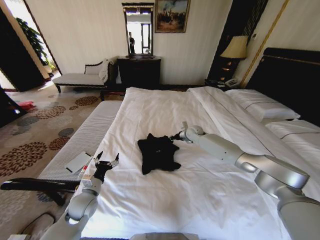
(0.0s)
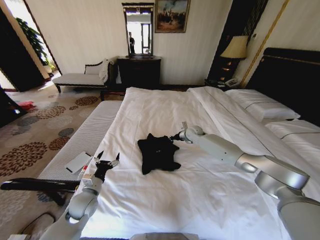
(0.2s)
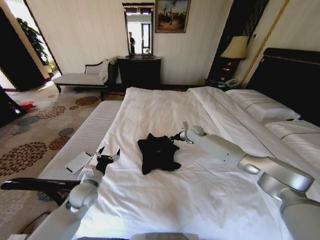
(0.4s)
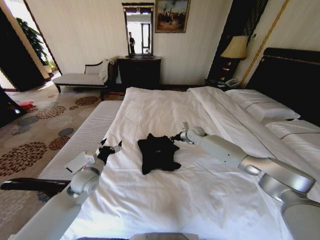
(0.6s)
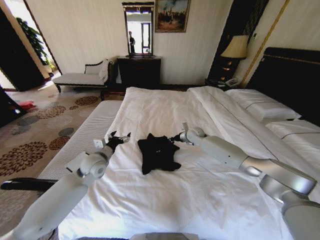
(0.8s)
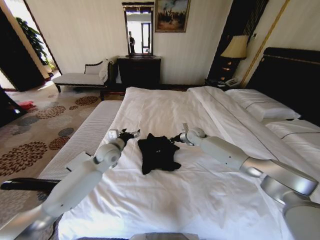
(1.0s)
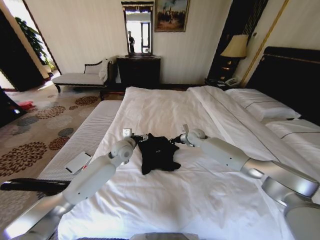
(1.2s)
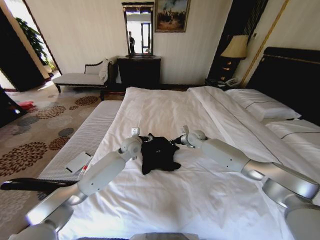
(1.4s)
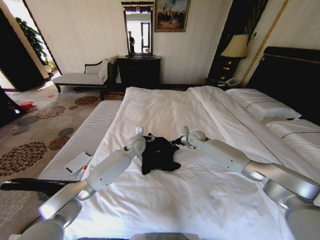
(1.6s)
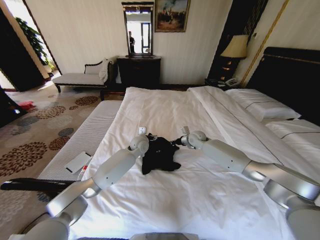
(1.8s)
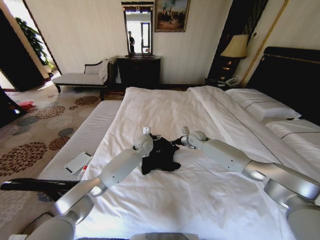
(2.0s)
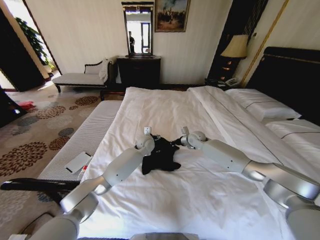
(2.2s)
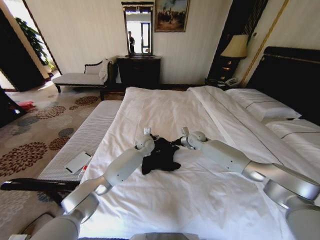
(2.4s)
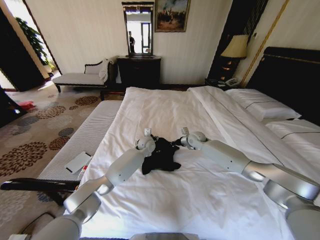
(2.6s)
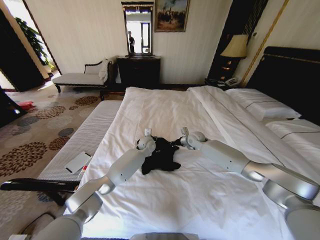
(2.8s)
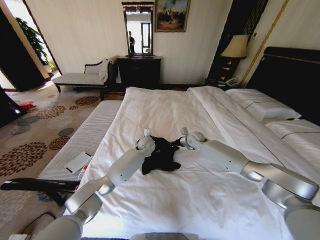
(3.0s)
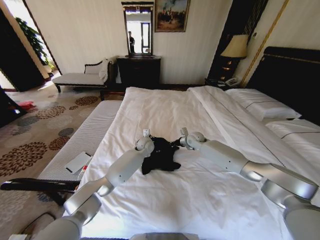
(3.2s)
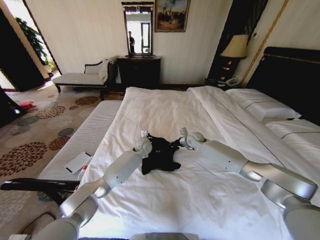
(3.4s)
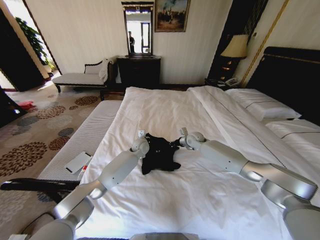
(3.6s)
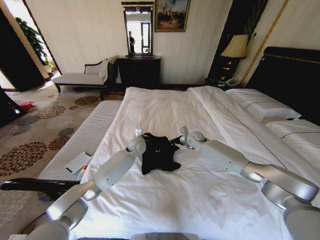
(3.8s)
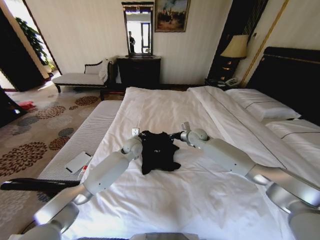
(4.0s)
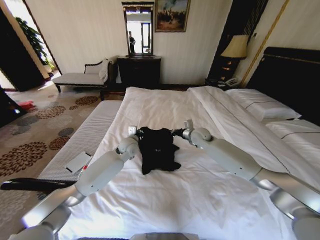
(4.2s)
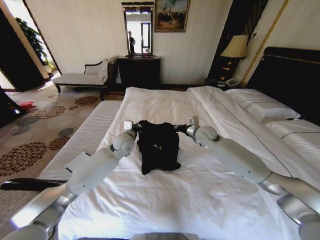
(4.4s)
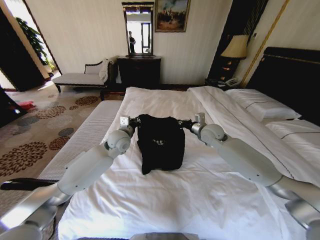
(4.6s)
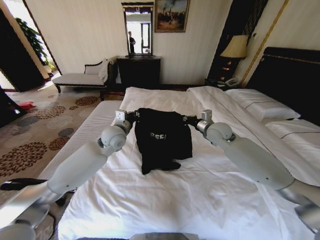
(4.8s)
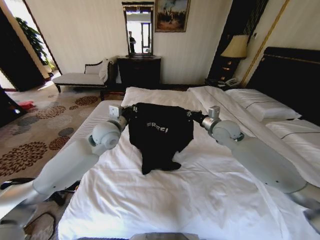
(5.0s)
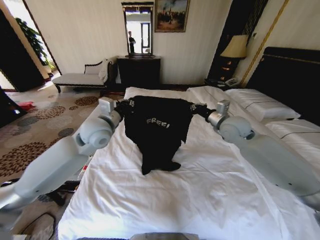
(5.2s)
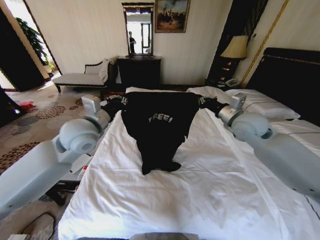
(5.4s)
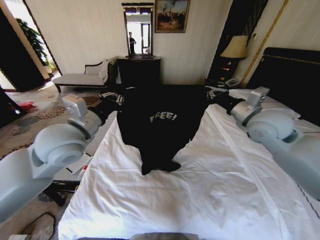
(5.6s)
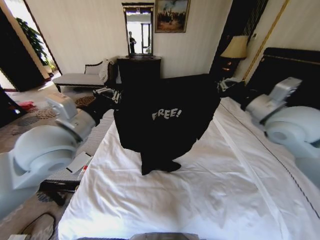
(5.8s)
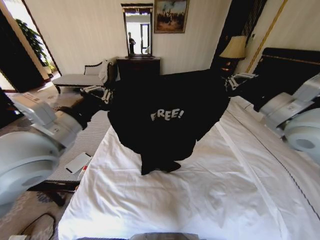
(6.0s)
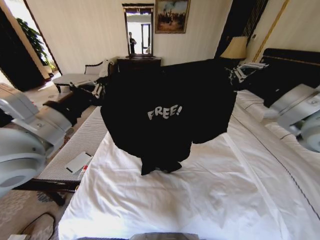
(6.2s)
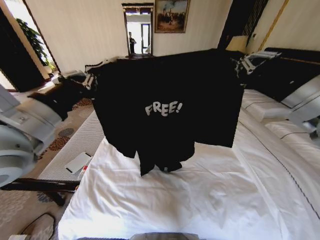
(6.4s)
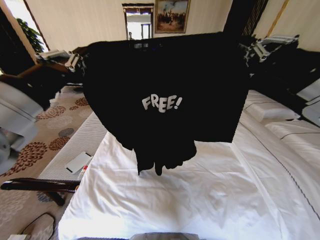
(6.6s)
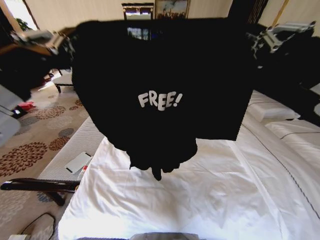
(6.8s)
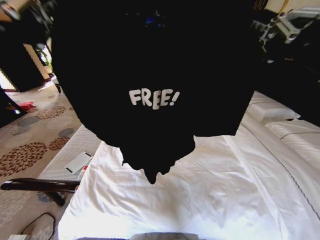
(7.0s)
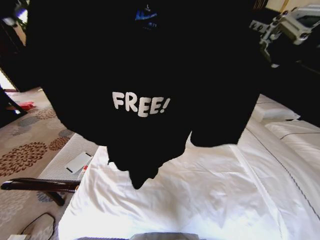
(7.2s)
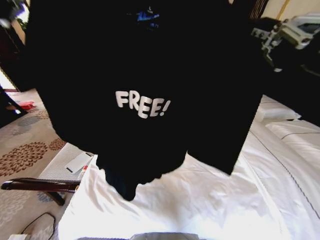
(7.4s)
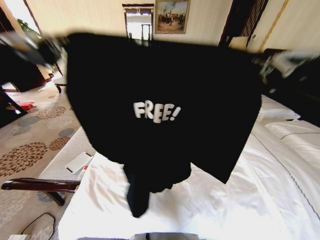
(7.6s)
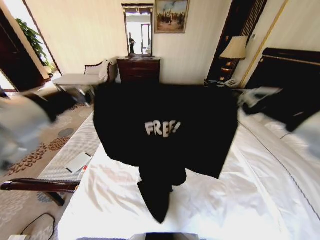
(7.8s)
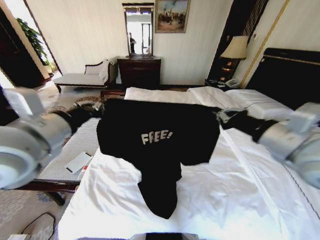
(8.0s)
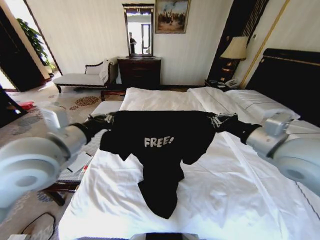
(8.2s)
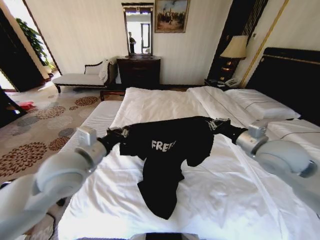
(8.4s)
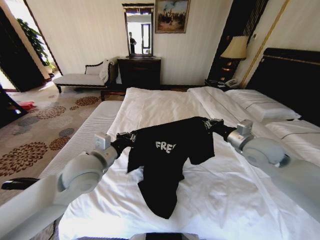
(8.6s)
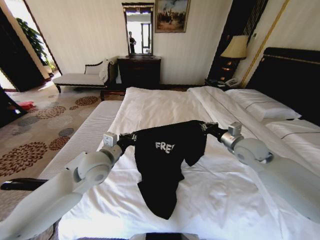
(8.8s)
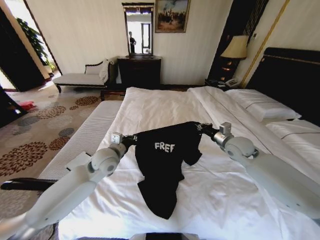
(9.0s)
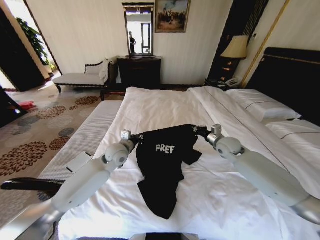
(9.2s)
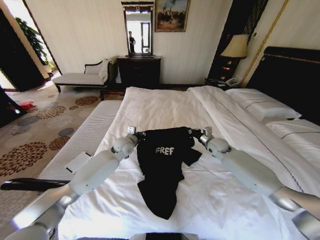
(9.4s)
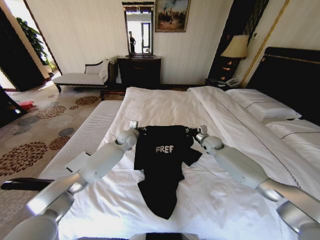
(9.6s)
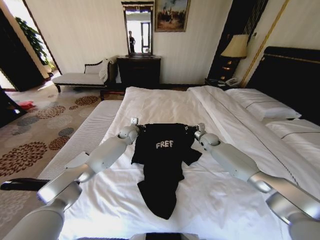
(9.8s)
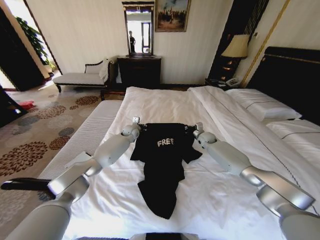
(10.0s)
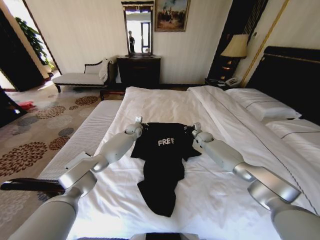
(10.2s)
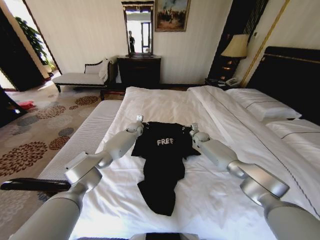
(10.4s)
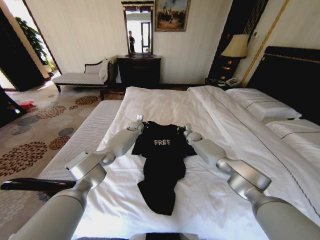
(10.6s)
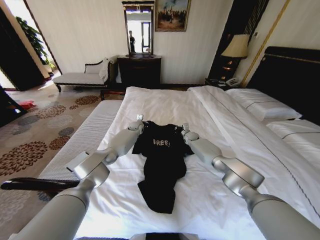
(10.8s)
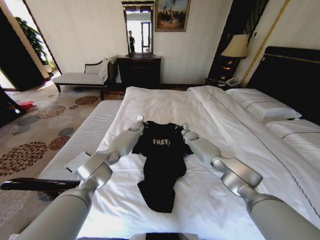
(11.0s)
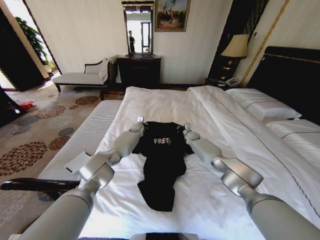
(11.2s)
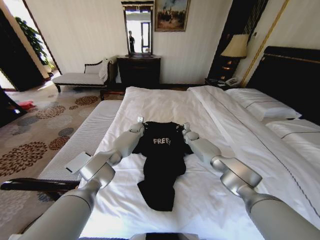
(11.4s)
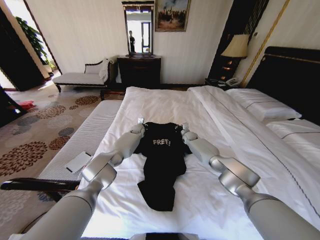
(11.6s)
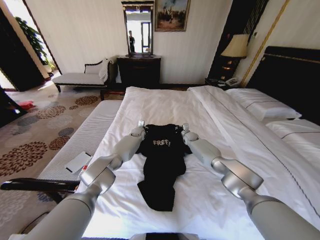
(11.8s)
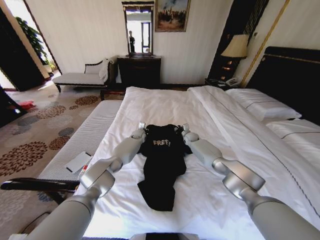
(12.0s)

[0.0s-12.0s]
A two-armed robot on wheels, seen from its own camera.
Task of the whole recording: Fold the clothes on the bed.
0.0s to 1.6s: The left gripper moves forward, to the right and upward, roughly 30 cm.
1.6s to 3.0s: The left gripper is displaced to the right by some 5 cm, and closes its fingers.
3.0s to 4.4s: The right gripper is displaced upward and backward by some 10 cm, while the left gripper shifts about 15 cm to the left, upward and backward.
4.4s to 6.0s: The left gripper goes approximately 30 cm backward, upward and to the left; the right gripper travels upward, backward and to the right by about 30 cm.
6.0s to 7.6s: The right gripper is displaced backward and upward by some 15 cm. Meanwhile the left gripper is displaced upward and backward by approximately 15 cm.
7.6s to 9.0s: The two grippers go roughly 35 cm downward and forward.
9.0s to 10.4s: The right gripper heads forward and downward, covering roughly 25 cm; the left gripper travels forward by about 30 cm.
10.4s to 12.0s: The left gripper shifts about 5 cm downward, while the right gripper ends up approximately 5 cm from where it was.

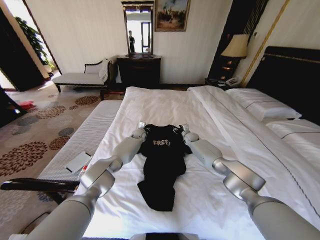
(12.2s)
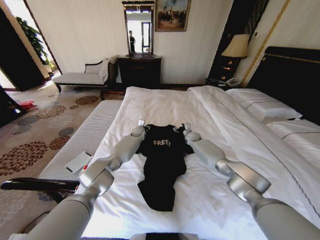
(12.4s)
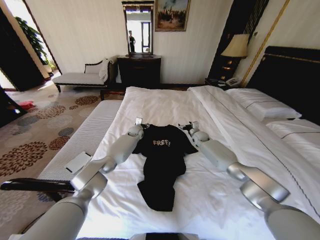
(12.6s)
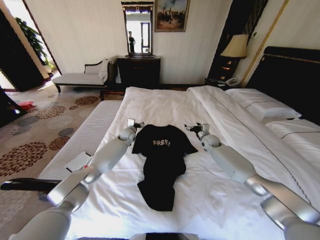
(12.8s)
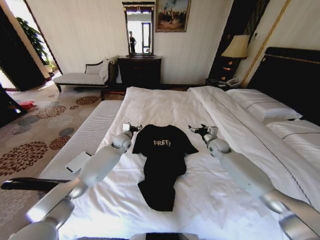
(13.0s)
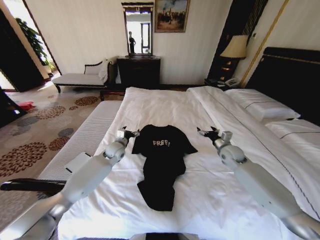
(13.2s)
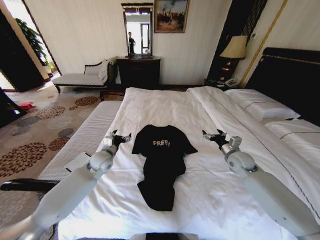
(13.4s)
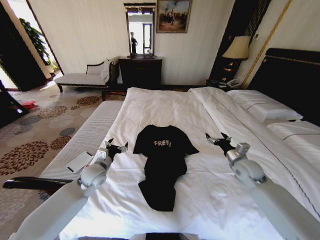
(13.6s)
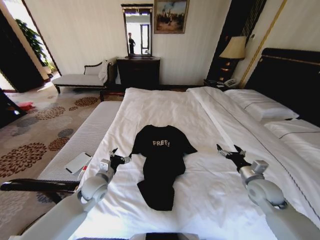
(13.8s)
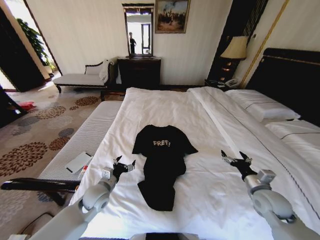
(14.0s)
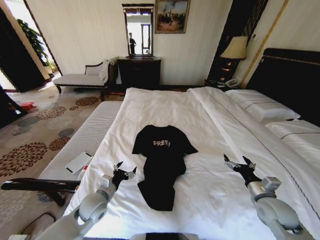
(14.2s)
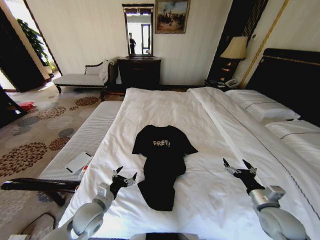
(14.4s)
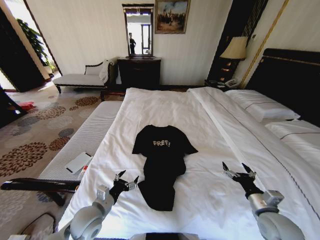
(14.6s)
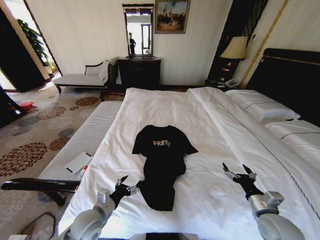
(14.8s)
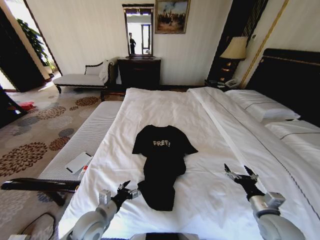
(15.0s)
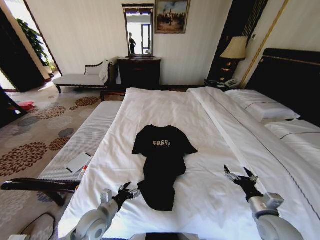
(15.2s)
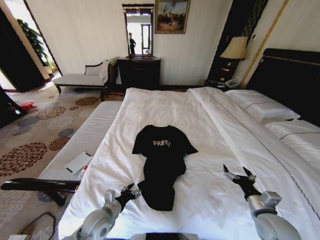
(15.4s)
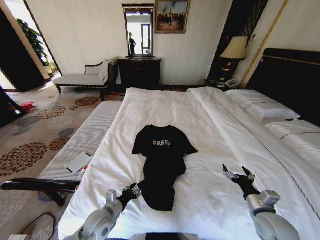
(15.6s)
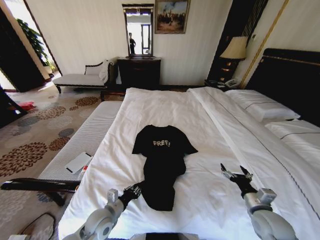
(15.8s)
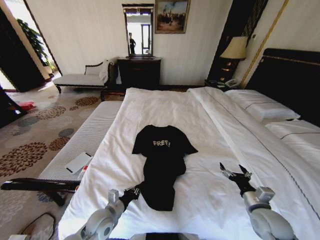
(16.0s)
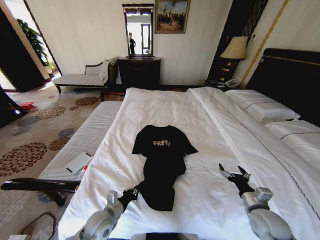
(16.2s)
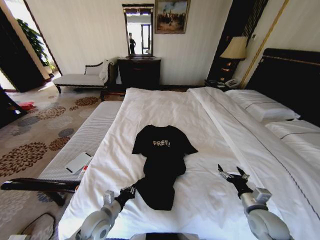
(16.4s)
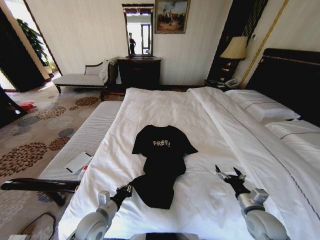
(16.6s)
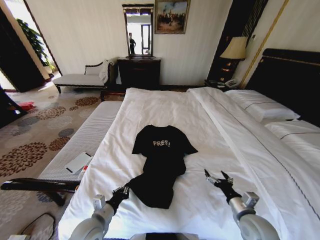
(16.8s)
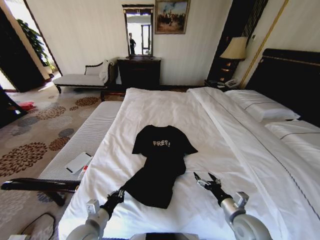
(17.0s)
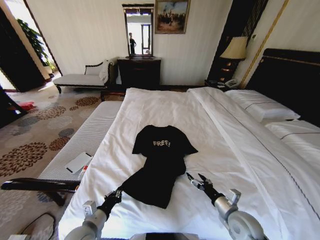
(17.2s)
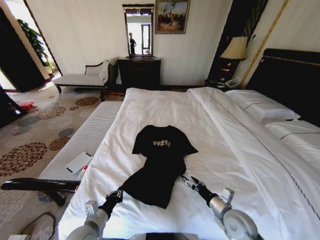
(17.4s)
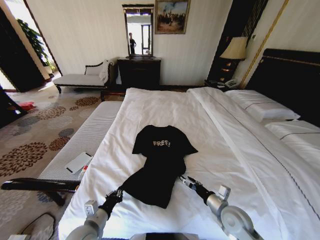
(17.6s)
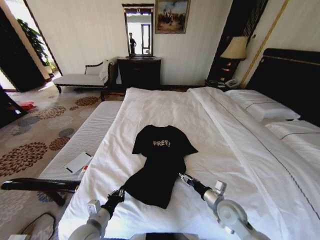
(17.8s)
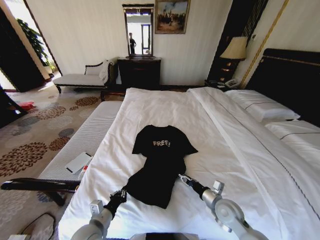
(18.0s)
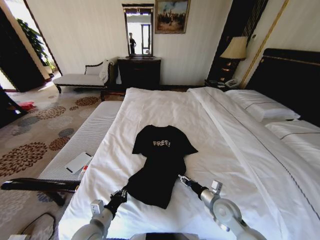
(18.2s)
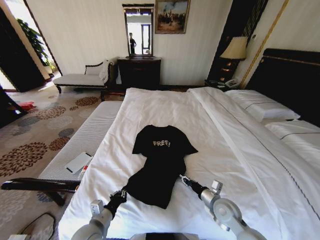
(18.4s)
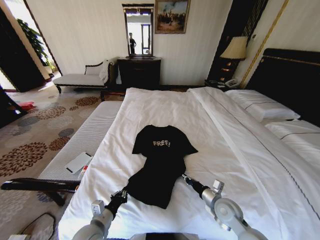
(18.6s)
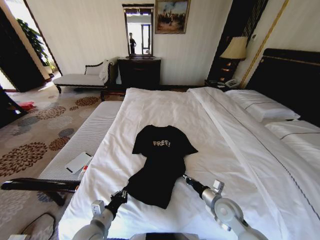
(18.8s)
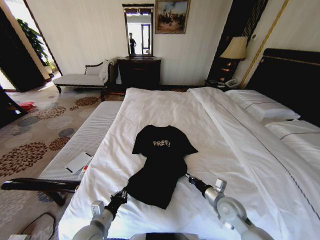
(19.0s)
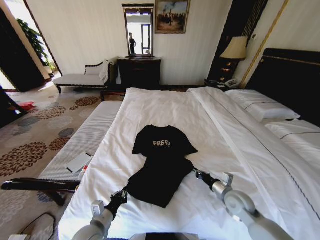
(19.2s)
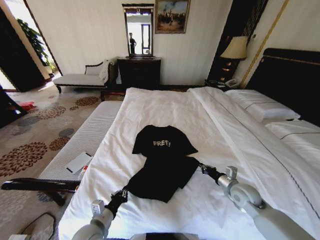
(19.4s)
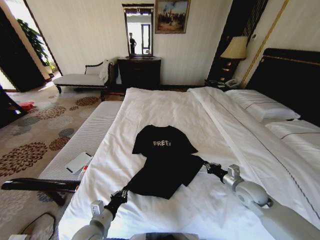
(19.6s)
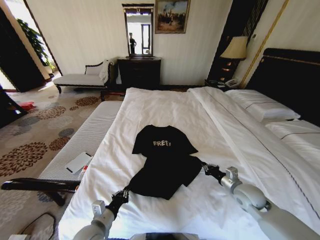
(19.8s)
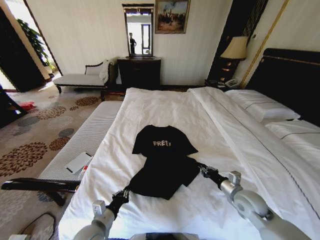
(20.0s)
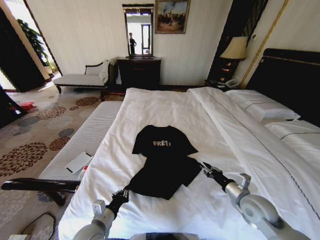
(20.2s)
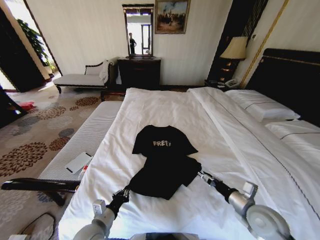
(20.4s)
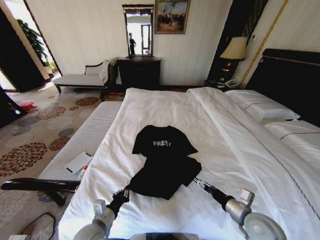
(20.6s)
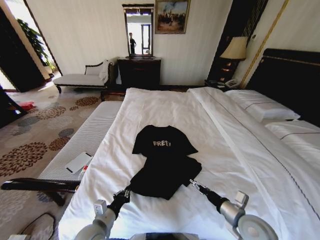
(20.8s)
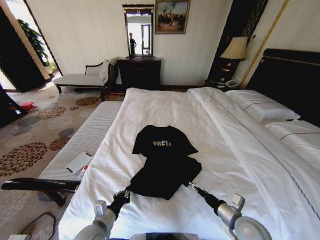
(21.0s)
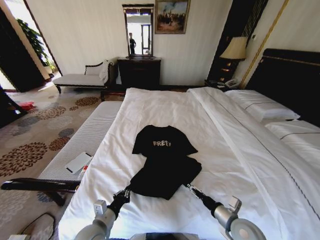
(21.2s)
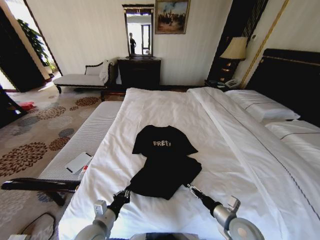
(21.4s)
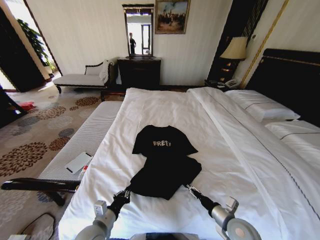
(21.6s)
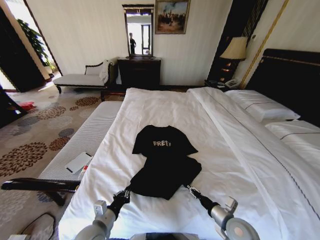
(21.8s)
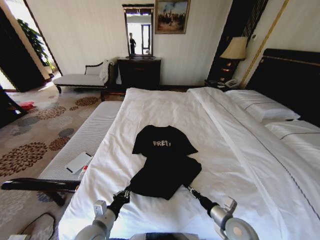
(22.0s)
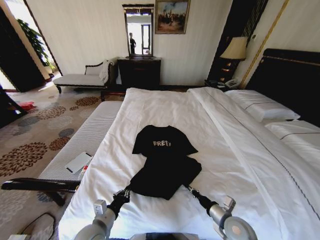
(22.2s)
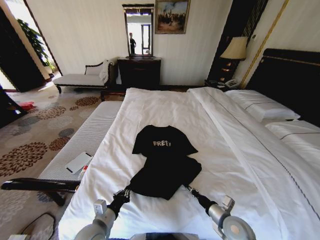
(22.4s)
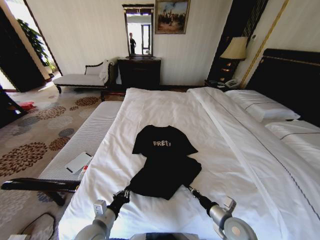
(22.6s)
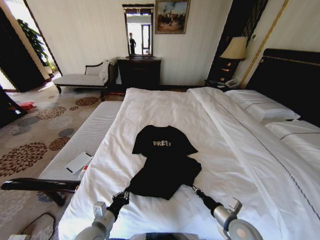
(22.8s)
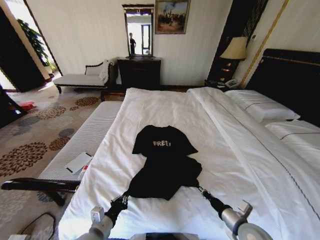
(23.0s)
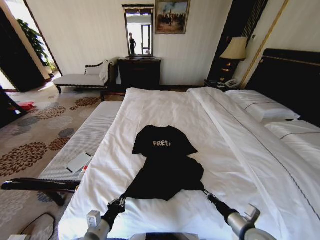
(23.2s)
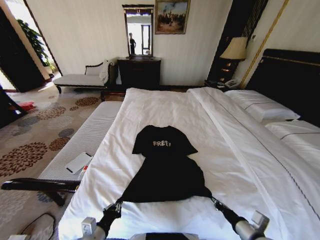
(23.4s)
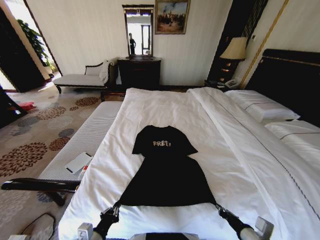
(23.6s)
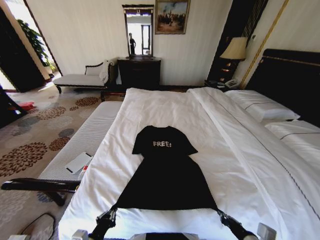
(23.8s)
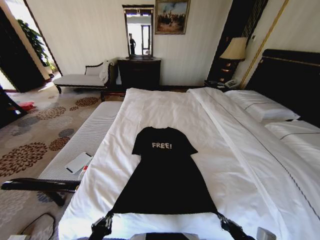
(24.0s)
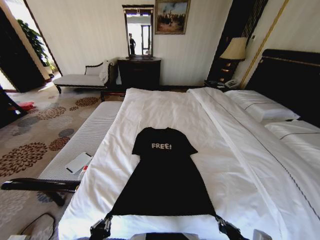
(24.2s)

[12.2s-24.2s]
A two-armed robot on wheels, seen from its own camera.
Task of the whole recording: Fold the clothes on the bed.
12.2s to 13.8s: The right gripper is displaced backward and to the right by some 40 cm, and opens up. Meanwhile the left gripper is displaced backward and to the left by some 35 cm, and opens up.
13.8s to 15.2s: Both grippers move backward, roughly 10 cm.
15.2s to 16.6s: The left gripper closes its fingers.
16.6s to 18.2s: The right gripper is displaced to the left by roughly 10 cm, and closes up.
18.2s to 19.8s: The right gripper moves to the right, about 10 cm, and closes its fingers.
19.8s to 21.2s: The right gripper moves backward and to the left, about 15 cm, and opens its fingers.
21.2s to 22.6s: The right gripper closes up.
22.6s to 24.2s: The grippers both shift backward by about 10 cm.
